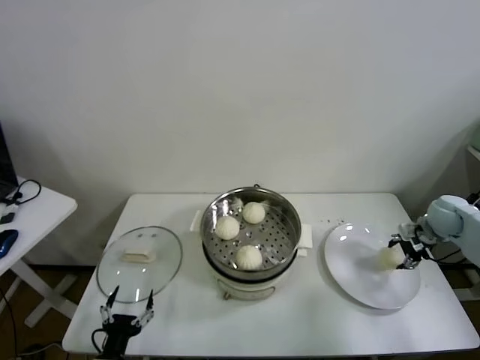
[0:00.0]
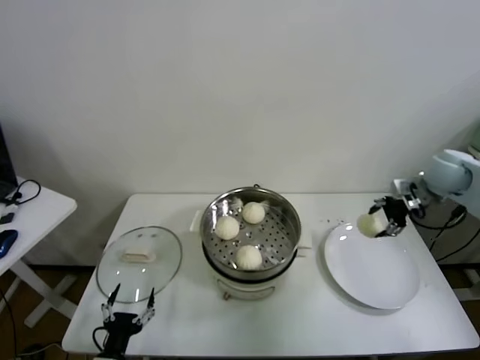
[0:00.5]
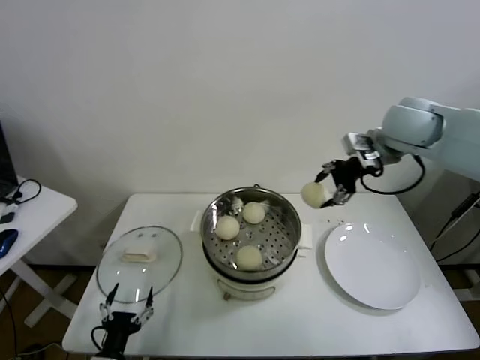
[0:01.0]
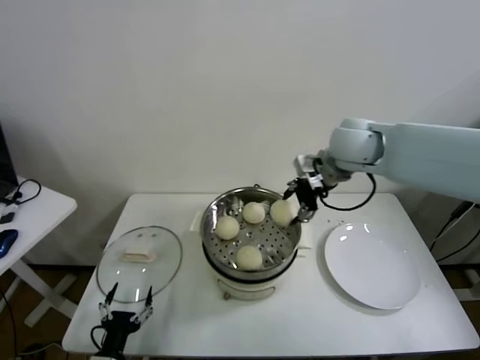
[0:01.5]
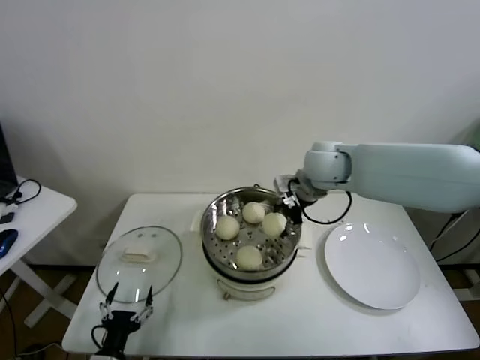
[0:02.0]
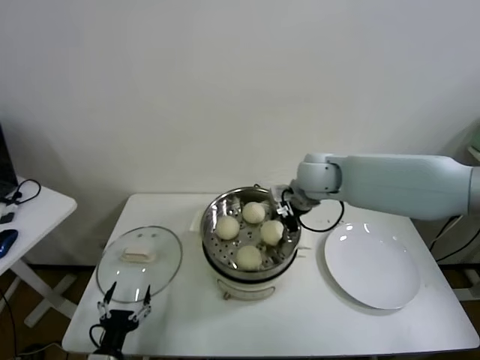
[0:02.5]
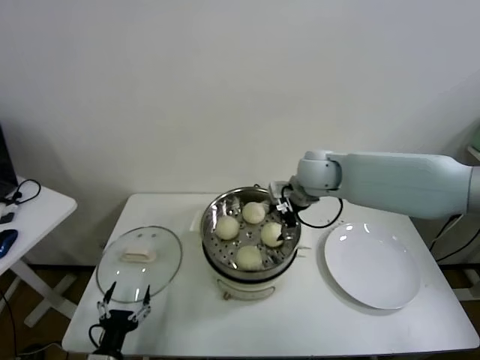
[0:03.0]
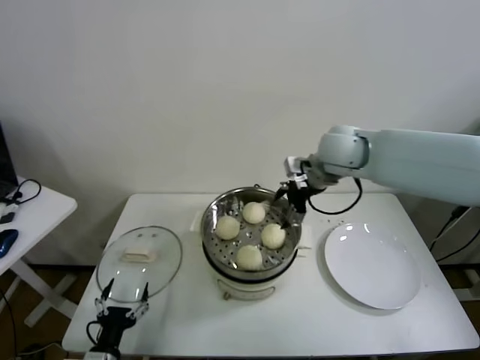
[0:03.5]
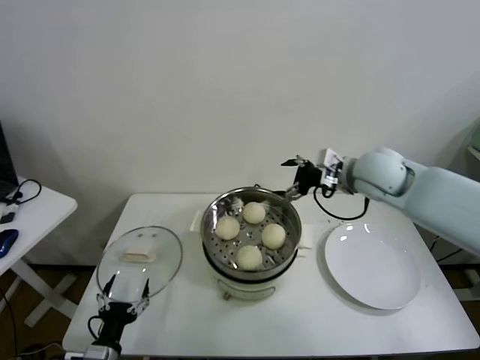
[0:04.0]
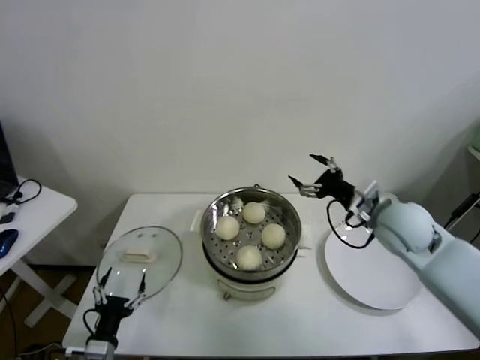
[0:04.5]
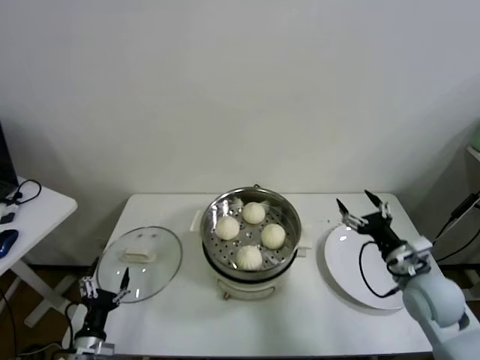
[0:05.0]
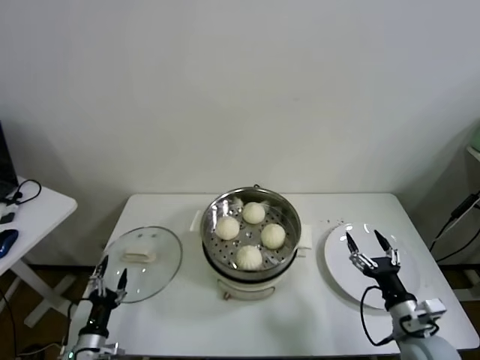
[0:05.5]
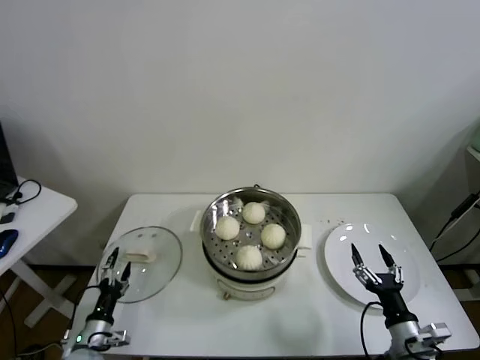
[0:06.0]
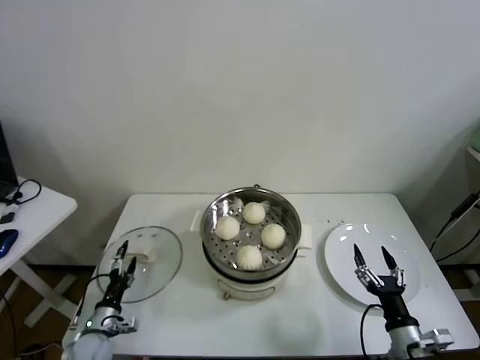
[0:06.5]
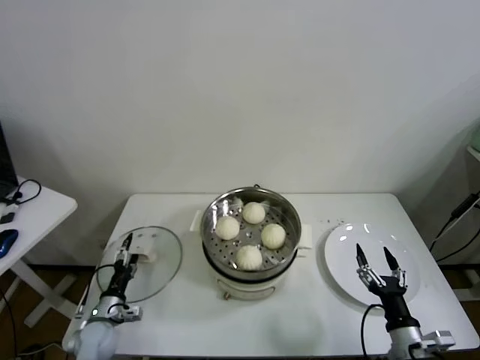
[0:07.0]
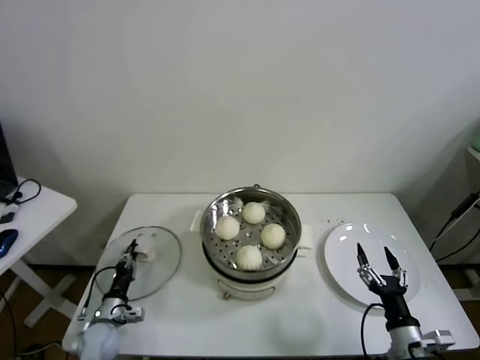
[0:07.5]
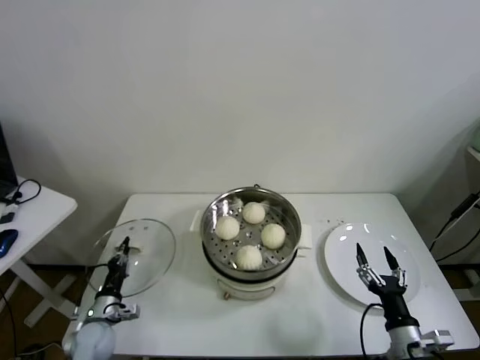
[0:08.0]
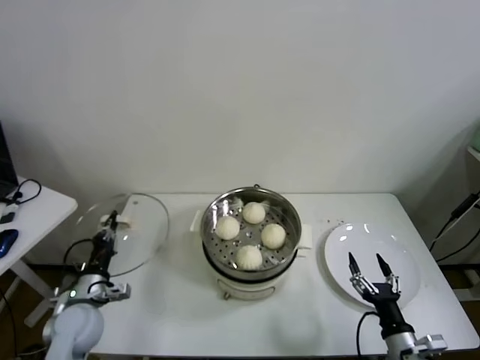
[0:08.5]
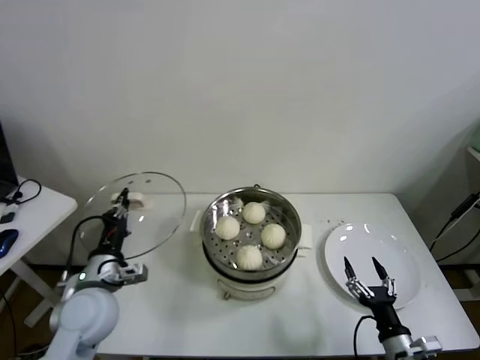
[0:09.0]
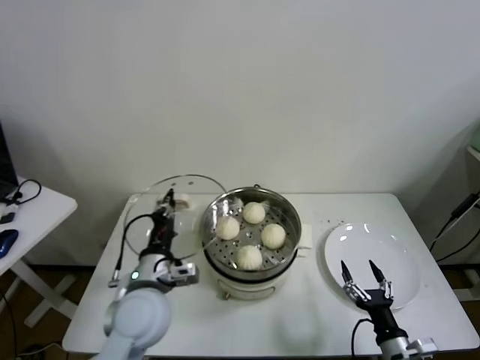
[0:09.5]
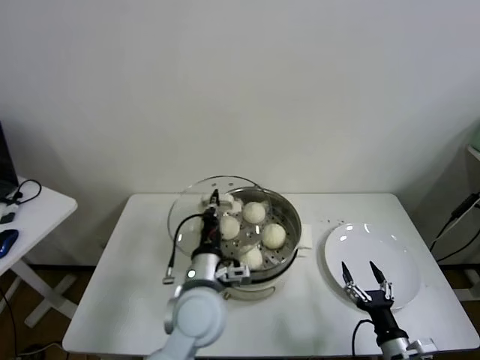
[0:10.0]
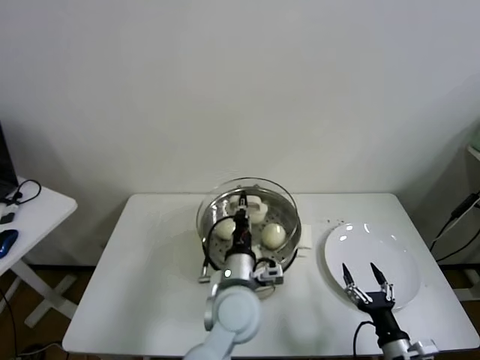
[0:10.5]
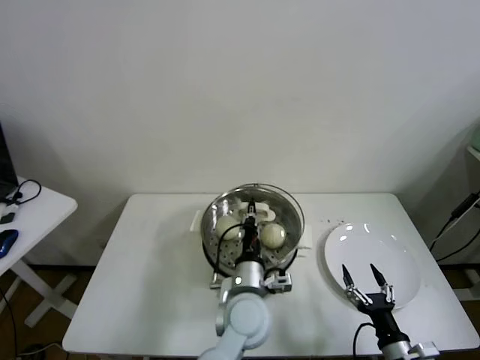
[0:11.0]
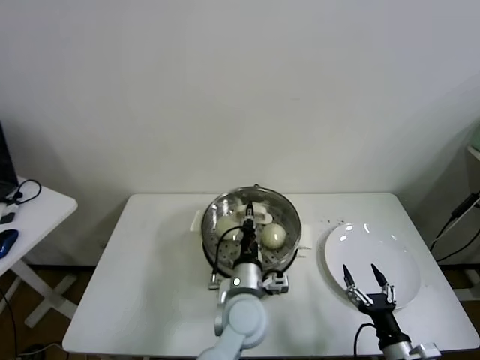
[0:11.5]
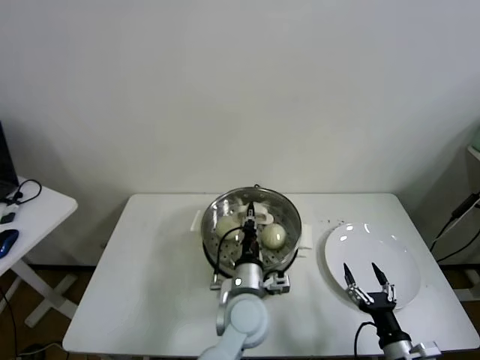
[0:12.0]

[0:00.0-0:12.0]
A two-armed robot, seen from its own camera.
Task of the whole recording: take steamed baozi put them in steamer.
Step, 0:00.0 to 0:03.0: Place the baozi on the steamer with right gripper.
Step, 0:03.5 to 0:07.5: Grasp the pot lid with left gripper.
0:00.0 to 0:02.0: The right gripper is displaced to the left and upward by roughly 35 cm.
0:02.0 to 0:04.0: The right gripper is displaced to the right by about 10 cm, and opens.
0:04.0 to 0:06.0: The left gripper moves forward, to the left and downward, roughly 10 cm. The right gripper goes roughly 40 cm backward and downward.
0:06.0 to 0:08.0: The left gripper is displaced forward by roughly 5 cm, and closes up.
0:08.0 to 0:10.0: The left gripper travels to the right and upward by some 35 cm.
0:10.0 to 0:12.0: The left gripper shifts approximately 10 cm to the right and downward.

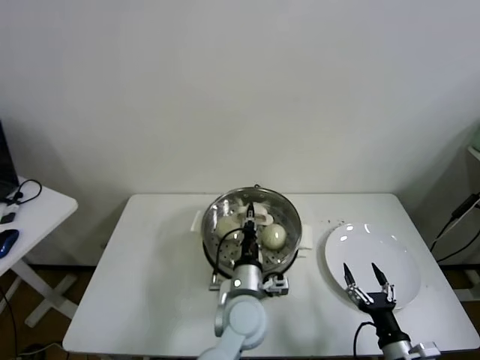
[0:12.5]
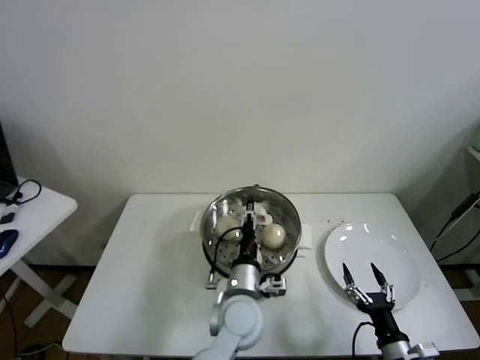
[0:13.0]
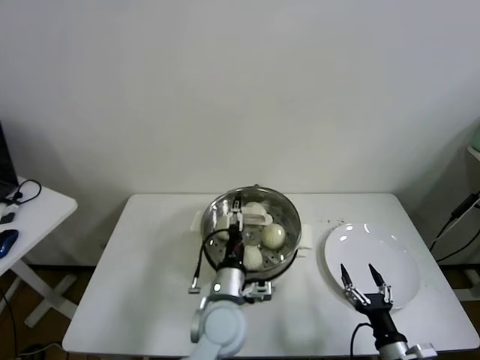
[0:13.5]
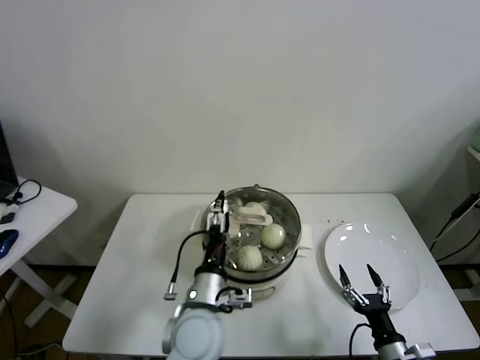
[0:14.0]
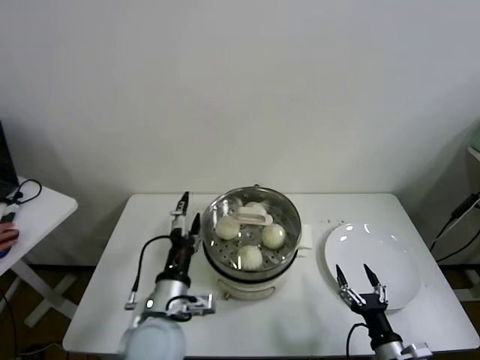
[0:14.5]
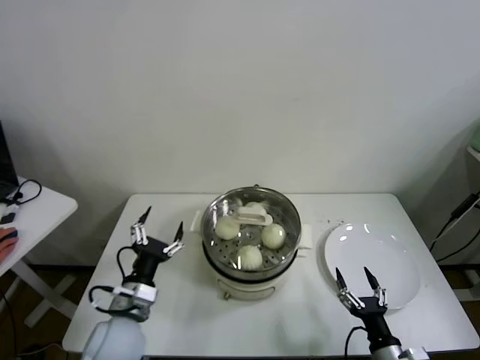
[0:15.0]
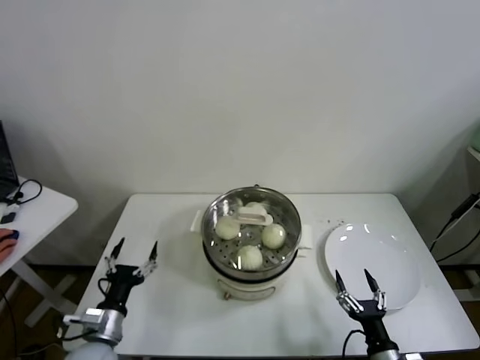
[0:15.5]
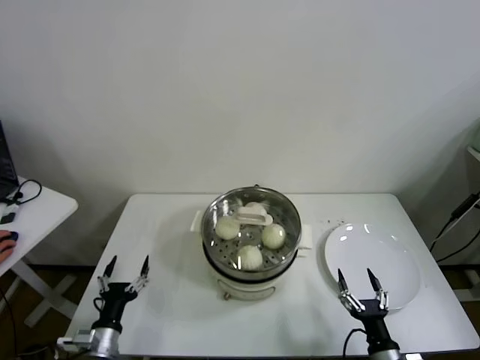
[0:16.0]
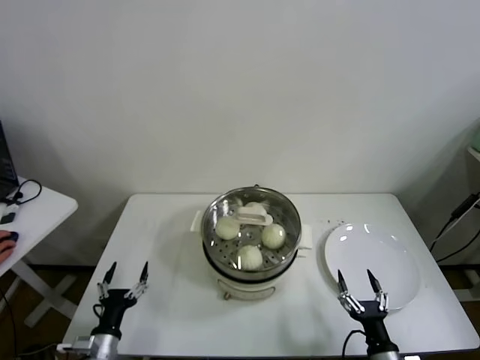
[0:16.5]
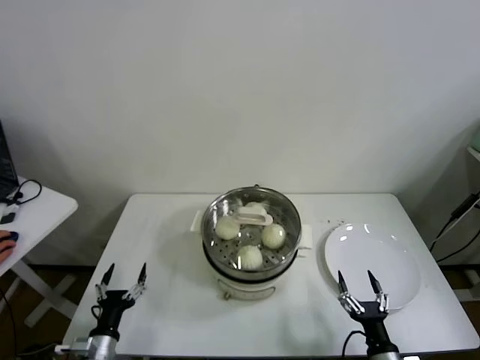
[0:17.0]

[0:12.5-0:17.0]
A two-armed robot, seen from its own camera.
Task of the whole recording: take steamed baozi put them in steamer.
0:12.5 to 0:14.5: The left gripper goes about 15 cm to the left and backward, and opens.
0:14.5 to 0:17.0: The left gripper moves to the left and downward, about 25 cm.
